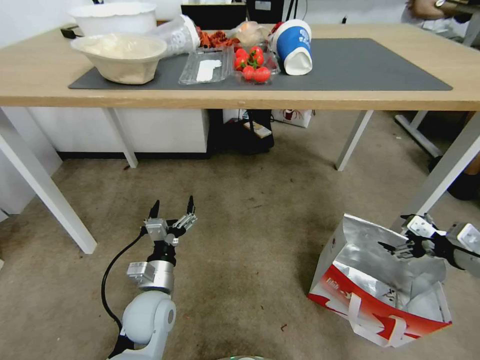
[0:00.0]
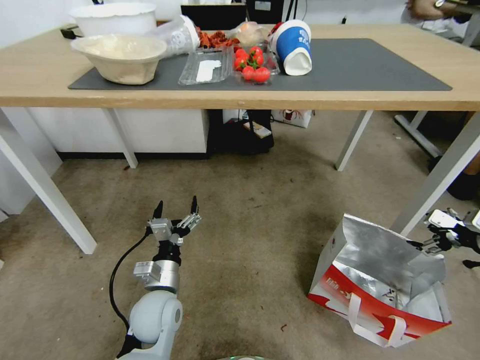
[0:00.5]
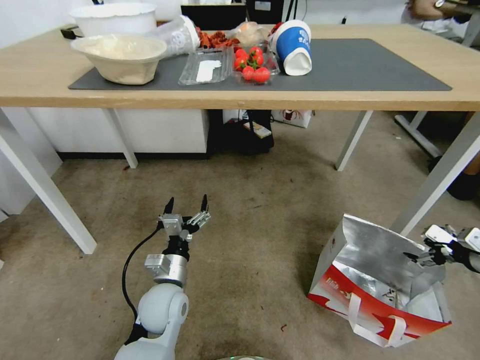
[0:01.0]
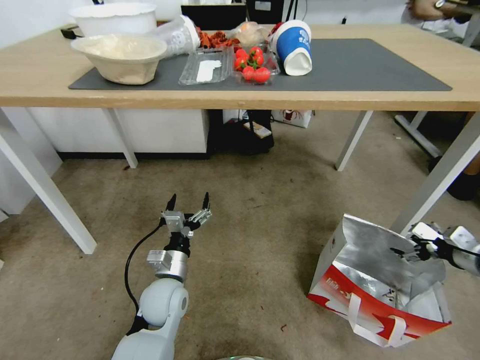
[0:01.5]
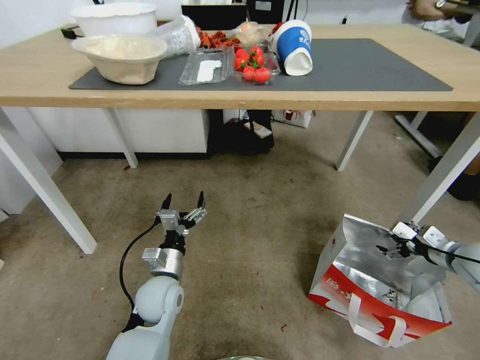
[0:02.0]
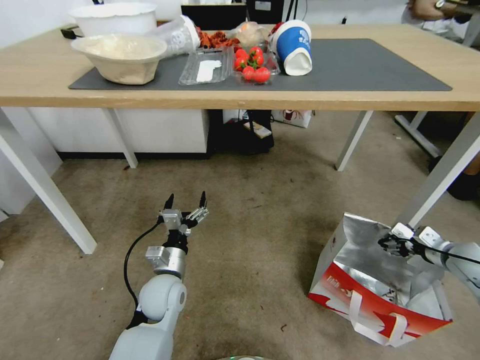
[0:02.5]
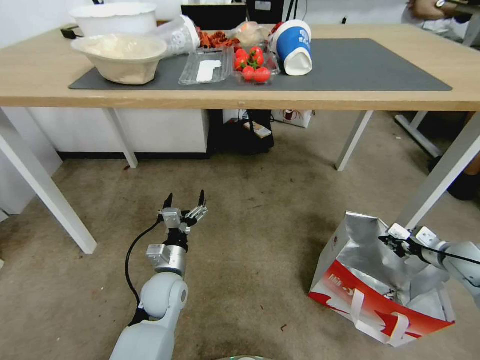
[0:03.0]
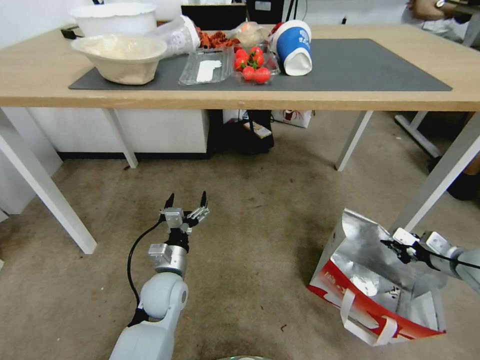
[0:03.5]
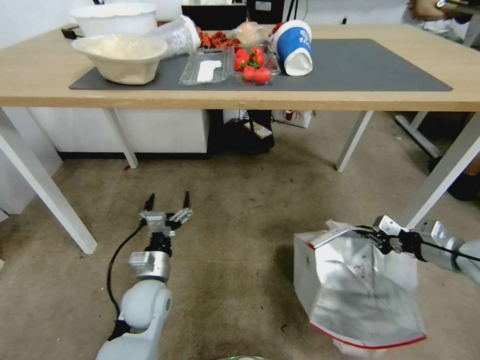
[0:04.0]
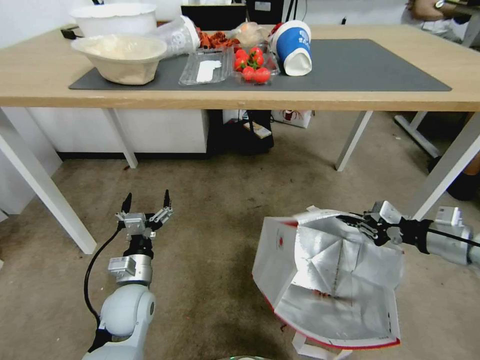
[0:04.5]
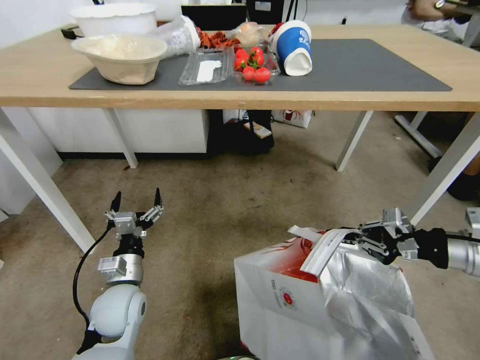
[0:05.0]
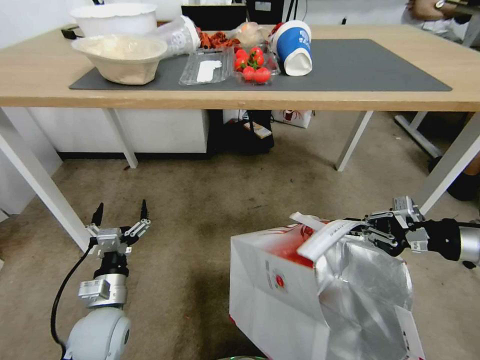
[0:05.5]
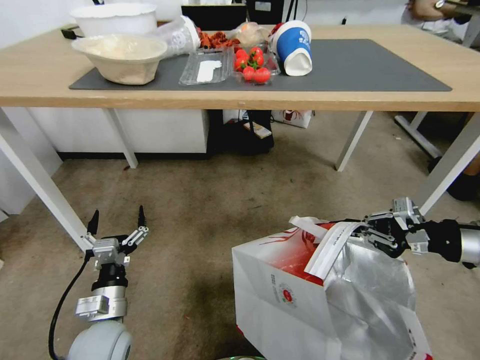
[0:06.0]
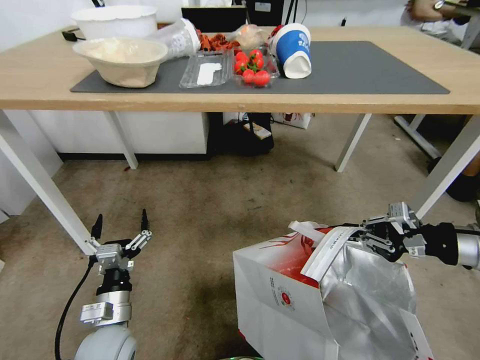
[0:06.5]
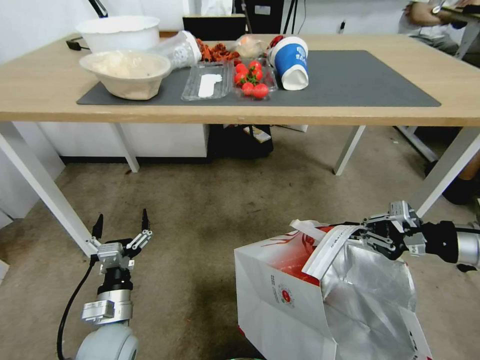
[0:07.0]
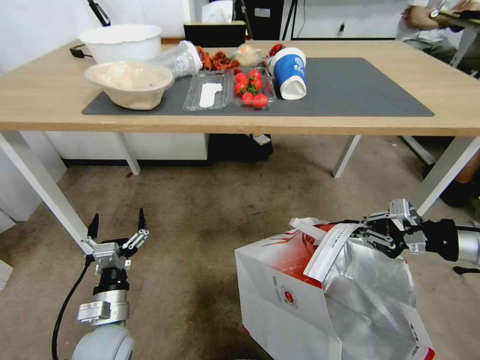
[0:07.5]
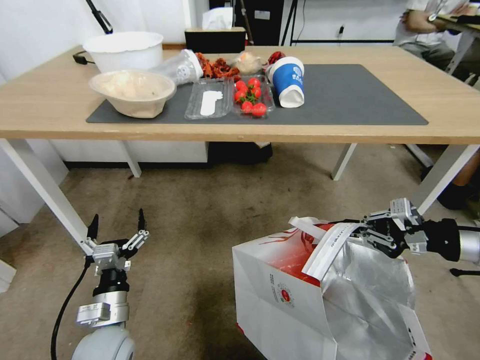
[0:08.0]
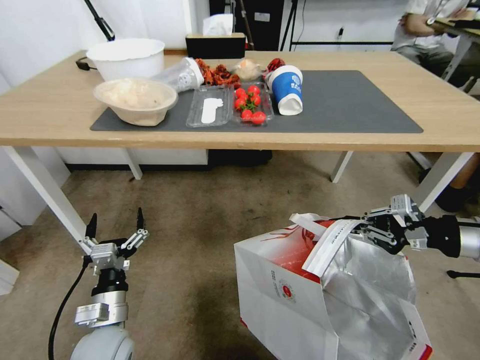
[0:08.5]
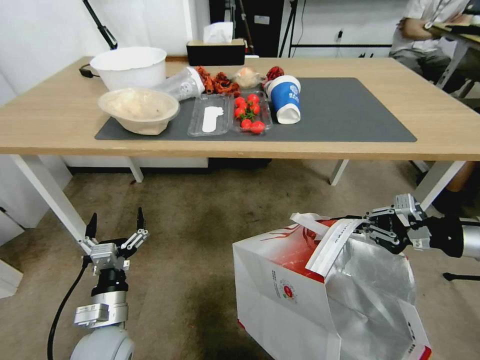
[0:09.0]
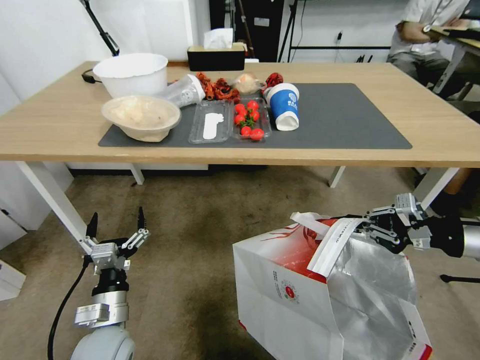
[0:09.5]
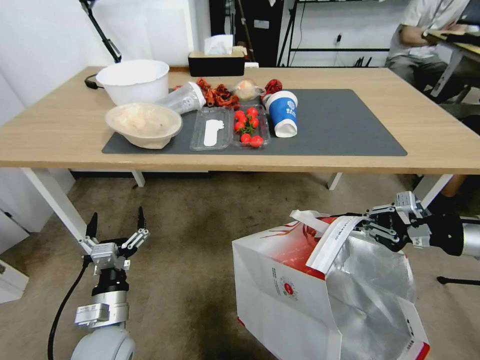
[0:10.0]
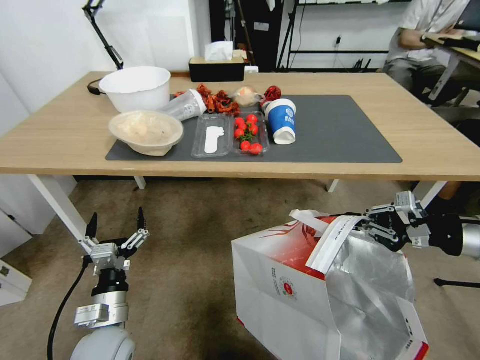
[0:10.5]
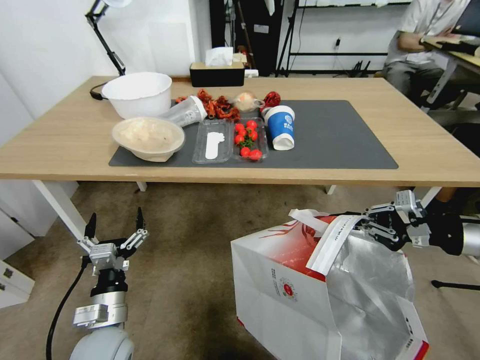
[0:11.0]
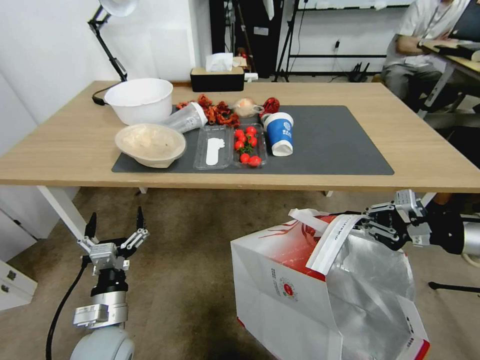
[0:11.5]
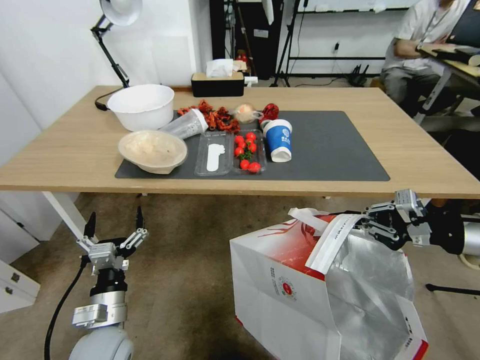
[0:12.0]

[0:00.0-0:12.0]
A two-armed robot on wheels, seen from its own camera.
Task of the whole recording: Pick up the food delivery bag from the floor and place it on the table.
0:00.0 to 0:02.0: The right gripper shifts some 10 cm downward and forward.
0:02.0 to 0:04.0: The right gripper travels upward by some 5 cm, and closes.
0:04.0 to 0:06.0: The left gripper shifts roughly 10 cm backward and to the left. Meanwhile the right gripper goes about 10 cm upward.

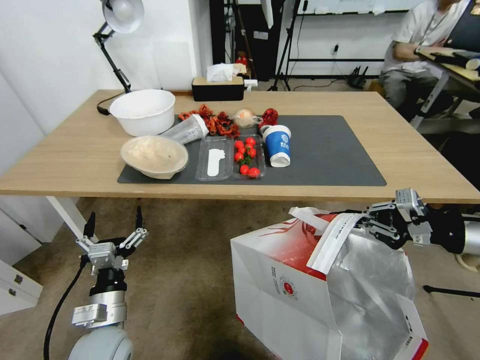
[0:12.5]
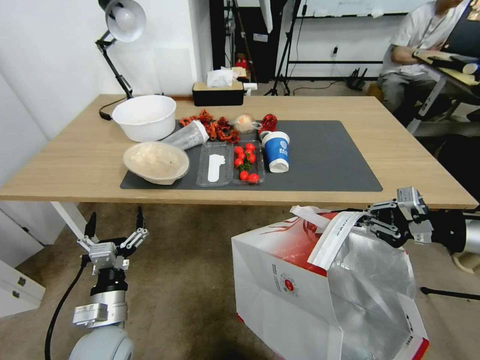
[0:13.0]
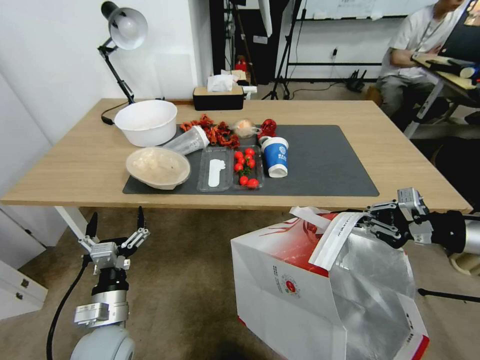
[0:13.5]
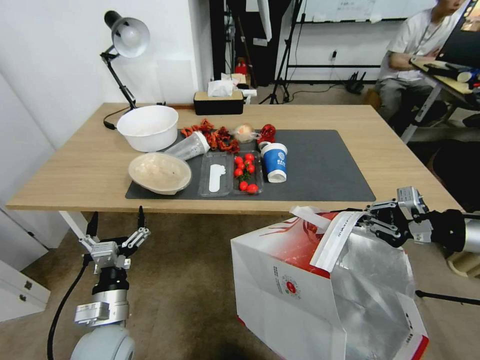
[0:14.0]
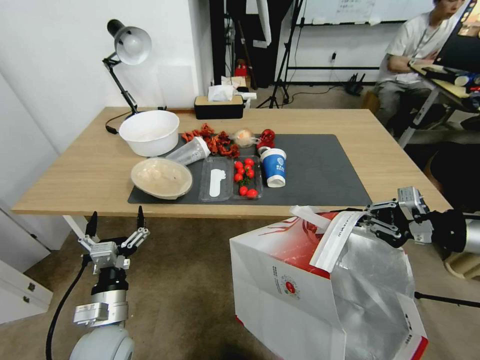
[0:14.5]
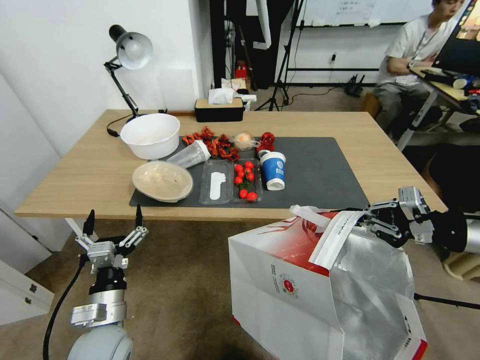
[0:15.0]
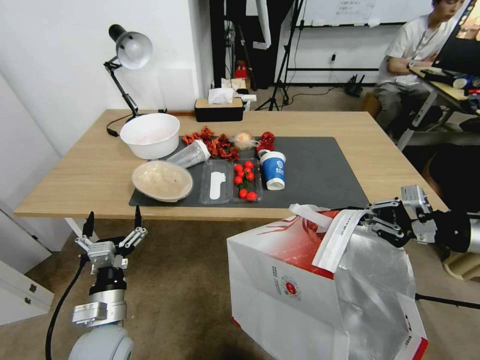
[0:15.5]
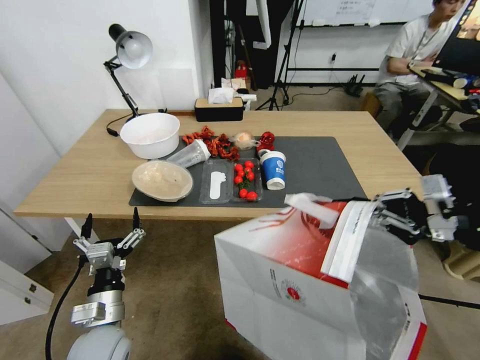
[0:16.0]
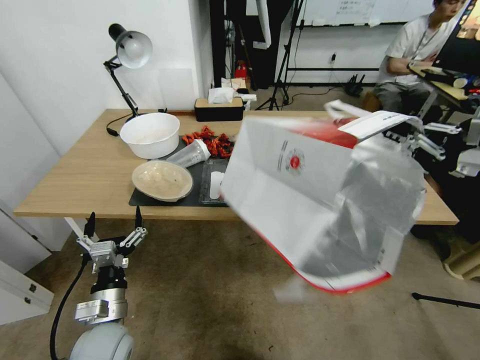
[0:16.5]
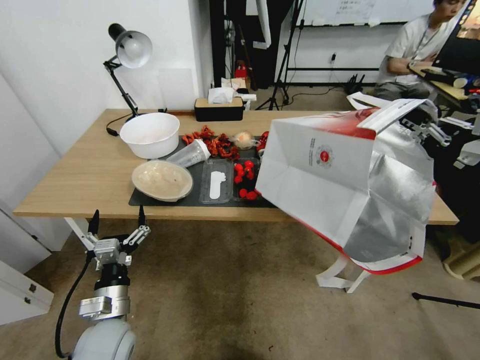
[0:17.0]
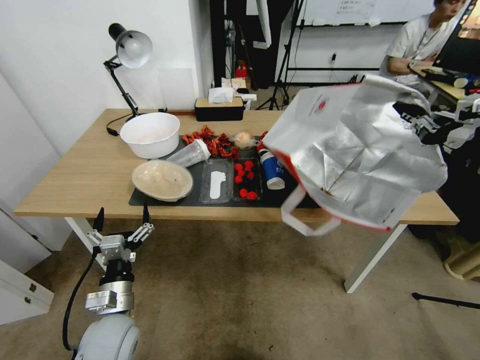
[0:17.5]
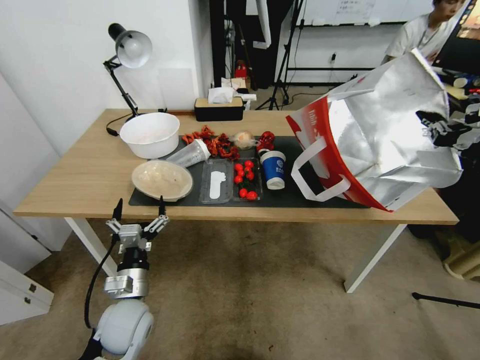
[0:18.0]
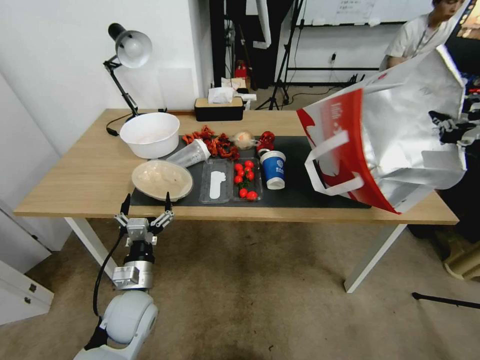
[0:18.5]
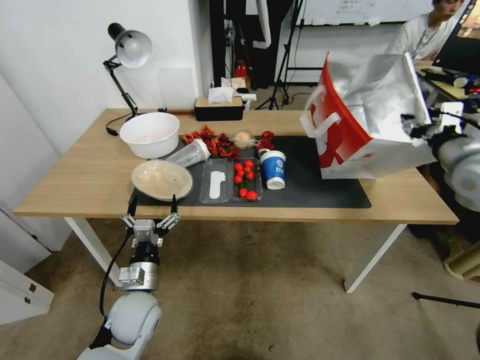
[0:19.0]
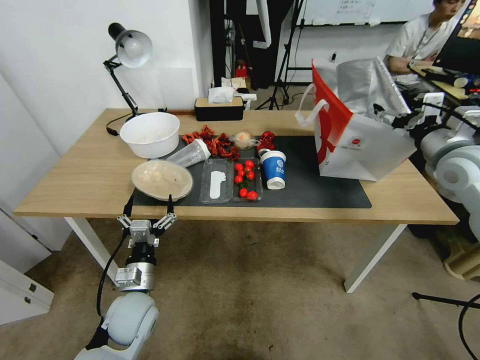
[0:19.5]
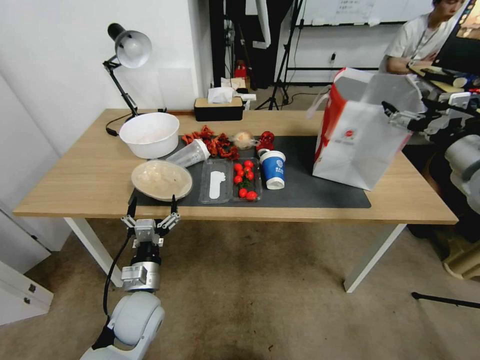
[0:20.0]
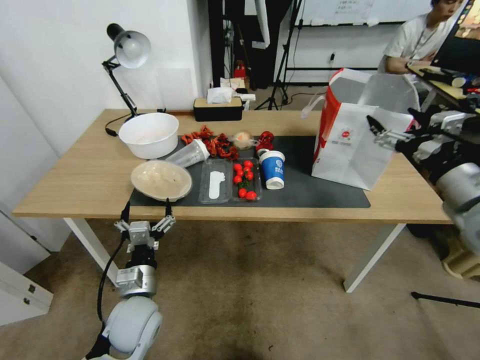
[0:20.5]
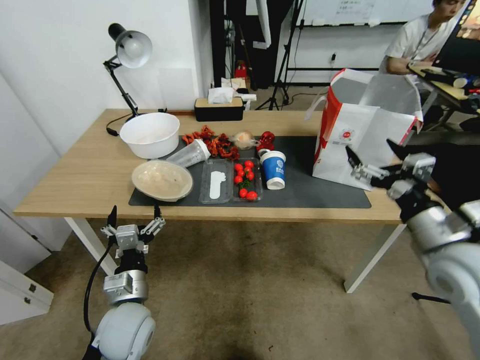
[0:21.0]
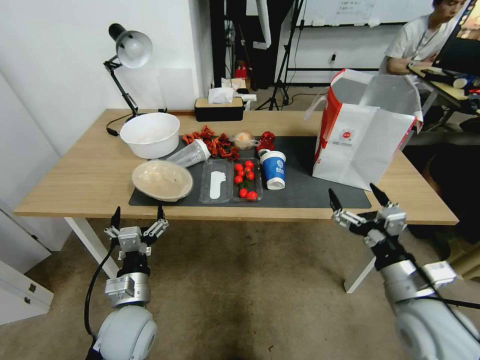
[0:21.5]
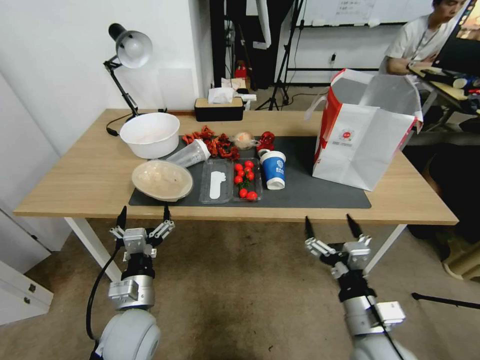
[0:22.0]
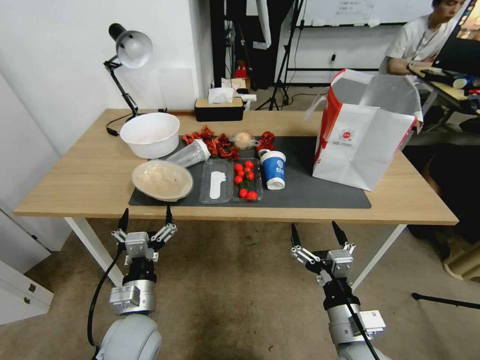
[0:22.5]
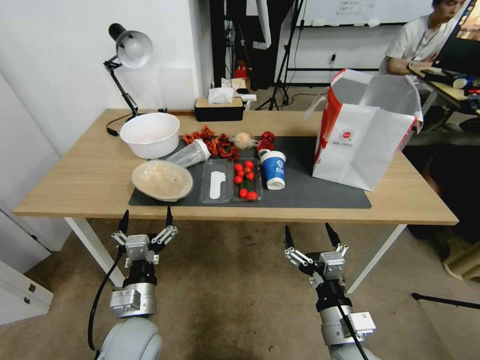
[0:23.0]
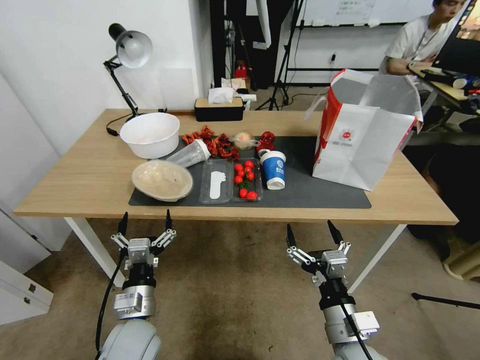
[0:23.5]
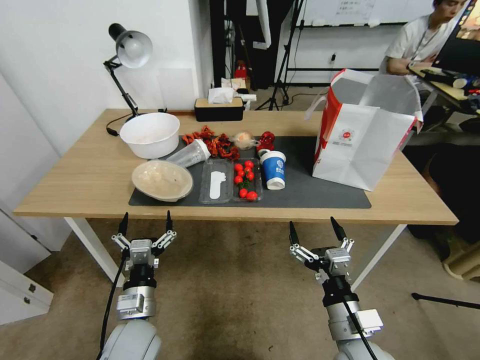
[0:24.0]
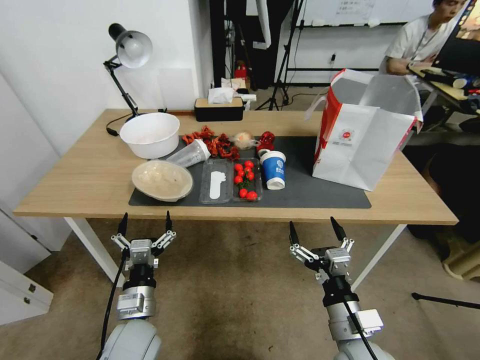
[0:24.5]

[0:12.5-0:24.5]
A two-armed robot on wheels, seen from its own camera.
Task of the whole recording: Pick up the food delivery bag from the floor and place it on the table.
0:14.5 to 0:16.5: The right gripper shifts about 5 cm upward.
0:16.5 to 0:18.5: The two grippers go approximately 5 cm forward.
0:18.5 to 0:20.5: The right gripper travels to the left by some 5 cm, goes forward and returns, approximately 10 cm each way, and opens its fingers.
0:20.5 to 0:22.5: The right gripper shifts approximately 35 cm downward, to the left and backward.
0:22.5 to 0:24.5: The grippers move only a little.

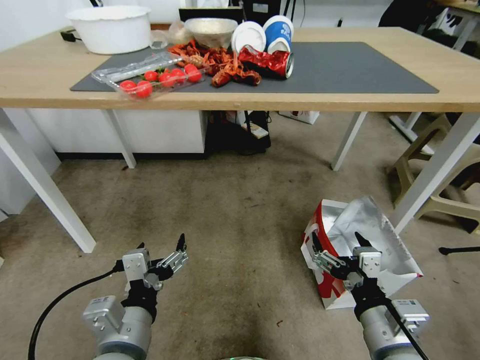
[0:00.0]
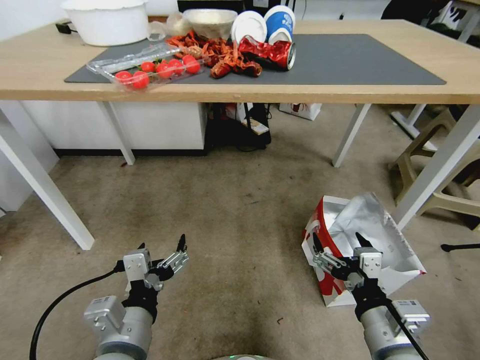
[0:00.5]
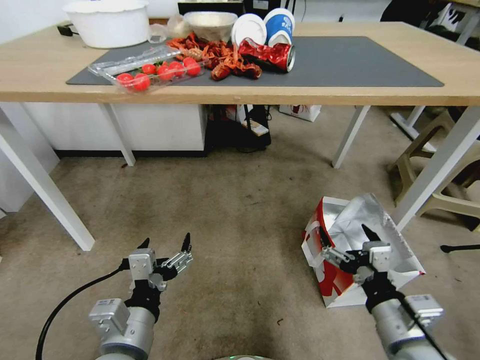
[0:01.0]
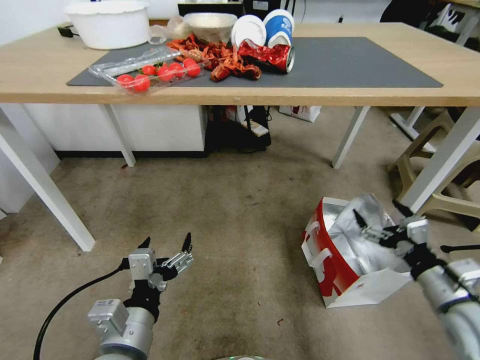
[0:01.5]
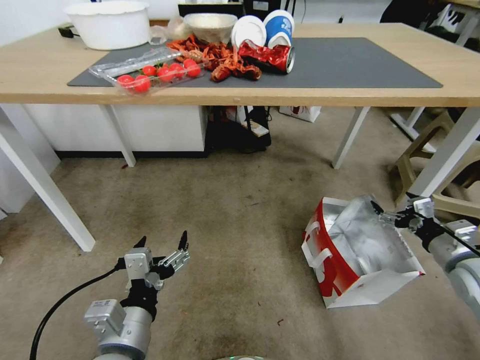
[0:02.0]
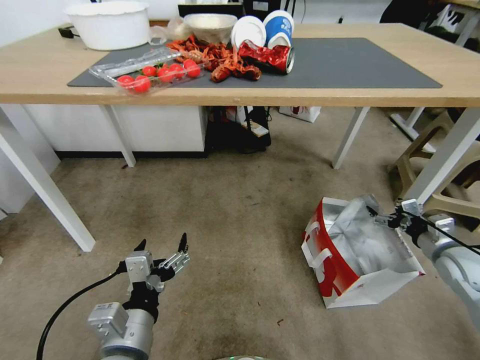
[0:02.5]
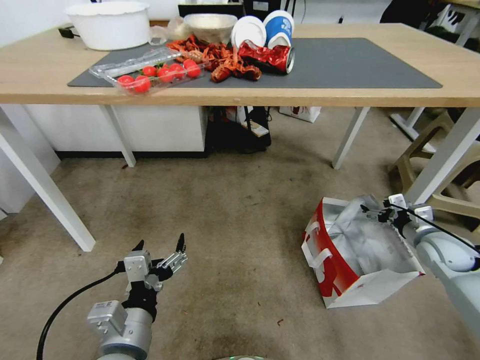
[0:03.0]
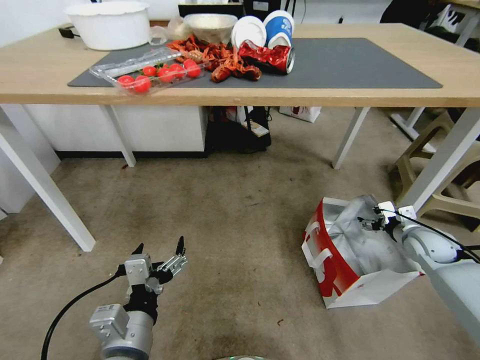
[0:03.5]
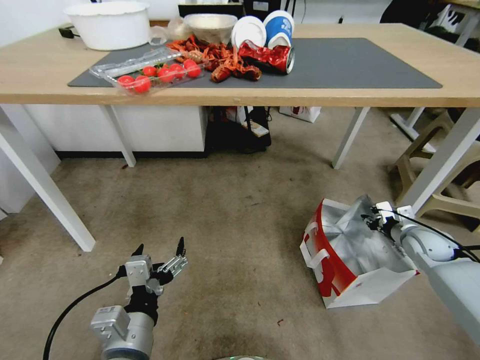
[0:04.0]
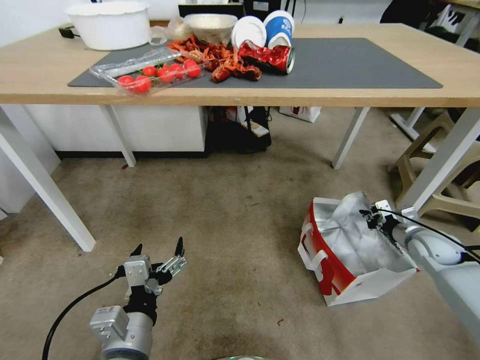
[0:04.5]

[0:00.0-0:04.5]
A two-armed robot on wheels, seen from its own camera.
Task of the whole recording: Pick up the food delivery bag from the floor and place it on the table.
0:00.0 to 0:02.0: The right gripper is displaced to the right and forward by approximately 30 cm.
0:02.0 to 0:04.5: The right gripper travels forward and downward by about 15 cm, and closes.
